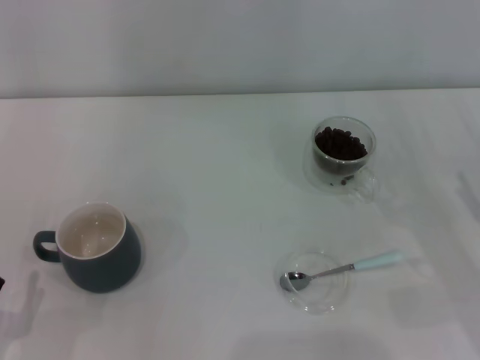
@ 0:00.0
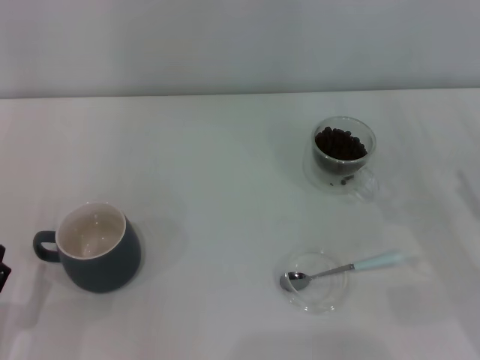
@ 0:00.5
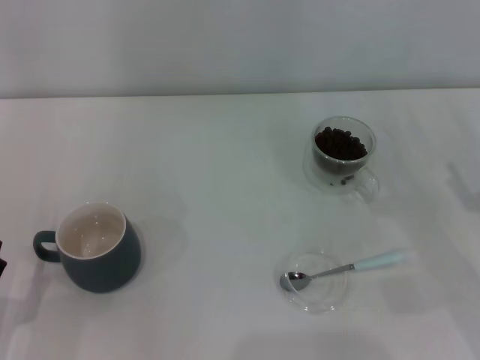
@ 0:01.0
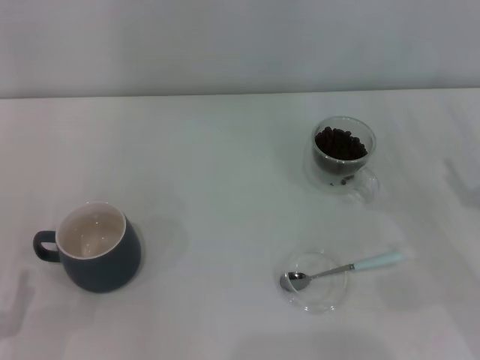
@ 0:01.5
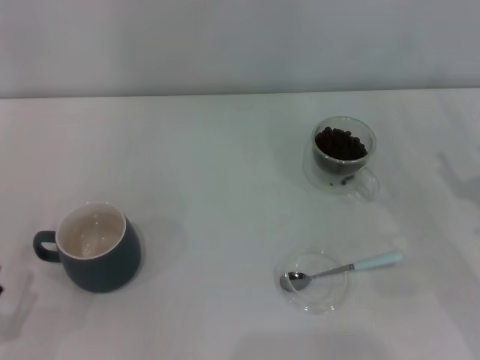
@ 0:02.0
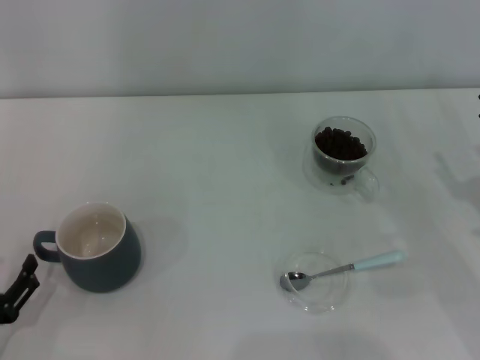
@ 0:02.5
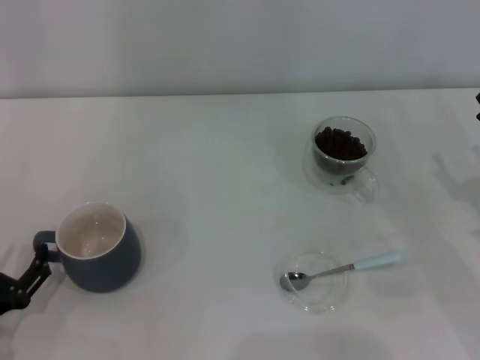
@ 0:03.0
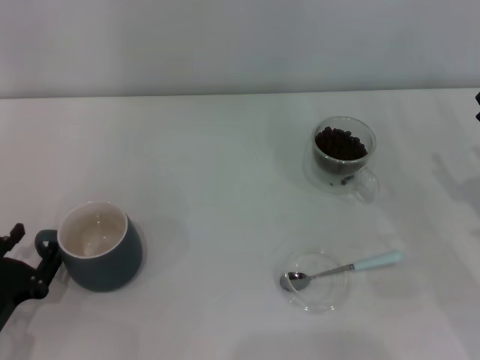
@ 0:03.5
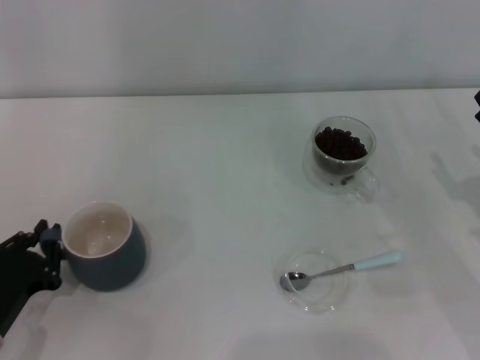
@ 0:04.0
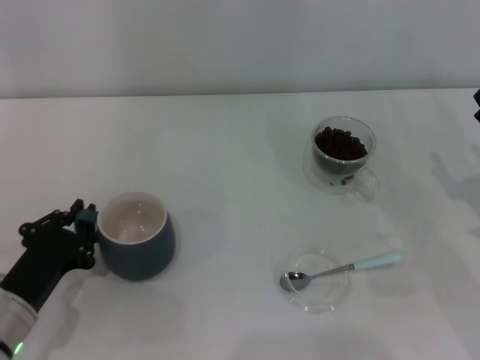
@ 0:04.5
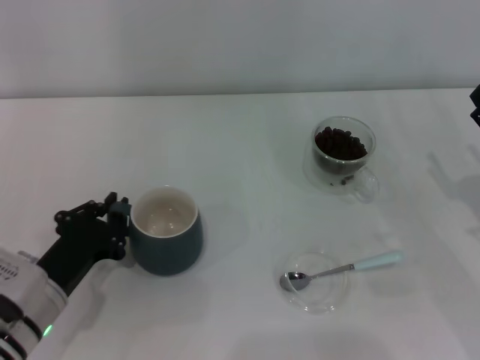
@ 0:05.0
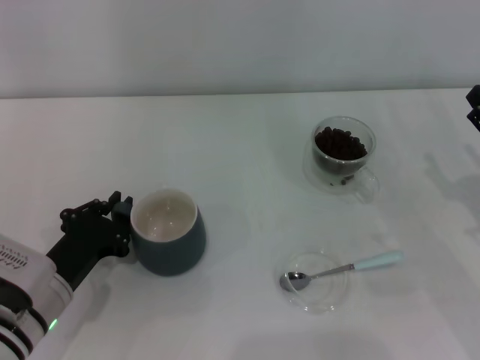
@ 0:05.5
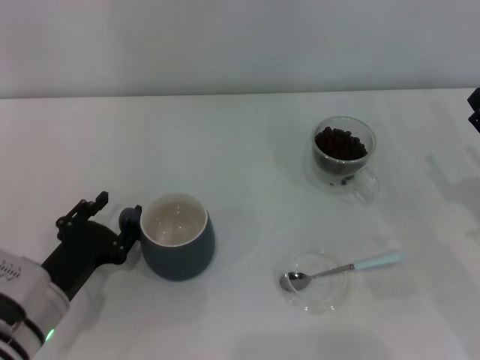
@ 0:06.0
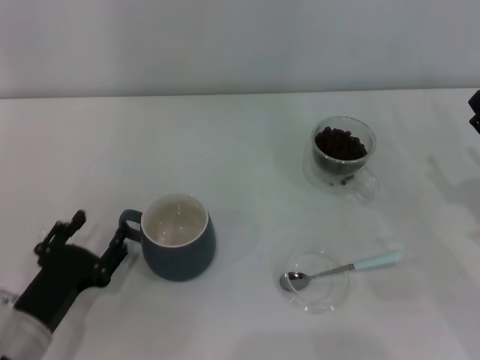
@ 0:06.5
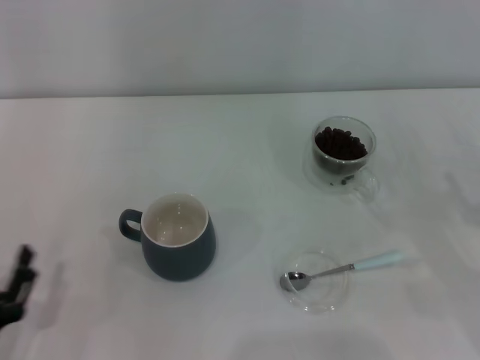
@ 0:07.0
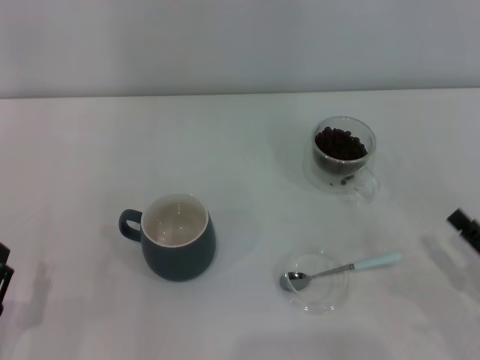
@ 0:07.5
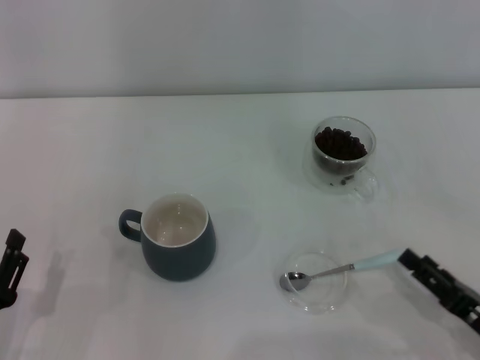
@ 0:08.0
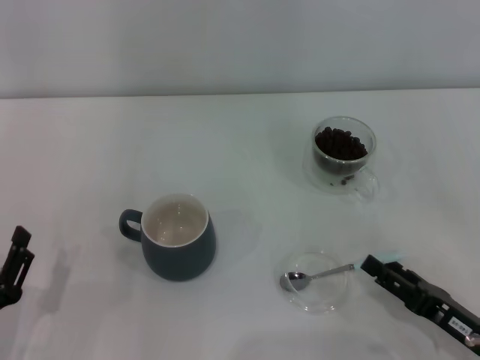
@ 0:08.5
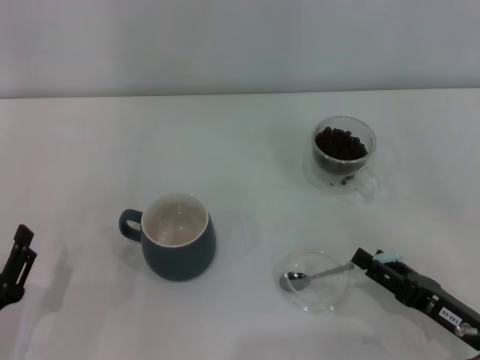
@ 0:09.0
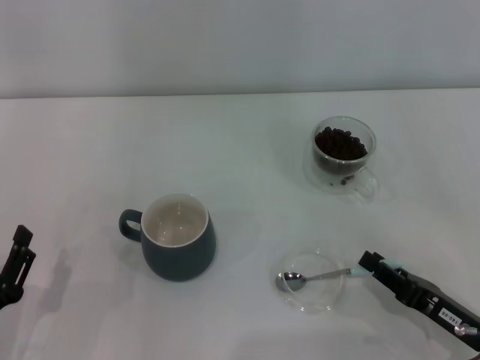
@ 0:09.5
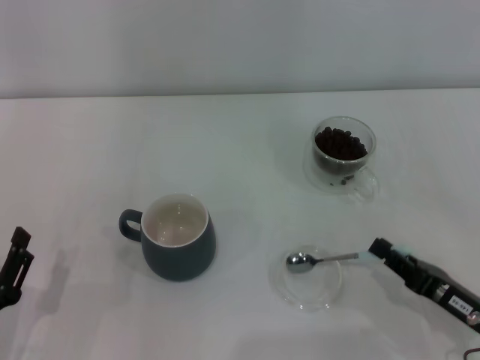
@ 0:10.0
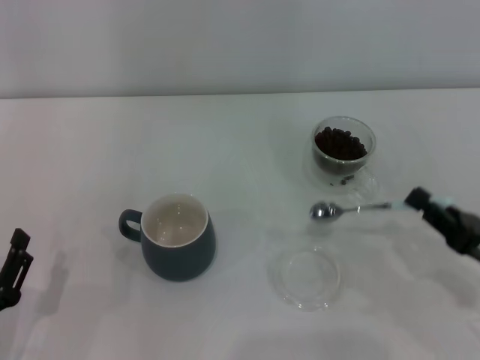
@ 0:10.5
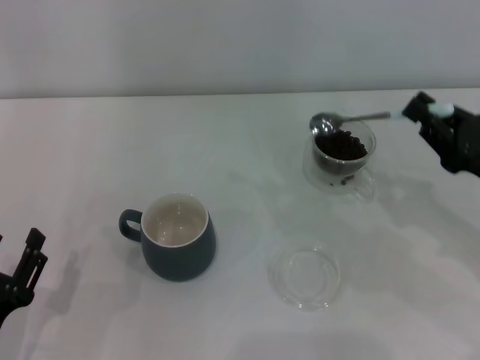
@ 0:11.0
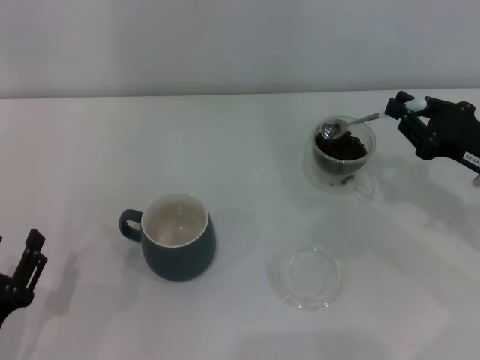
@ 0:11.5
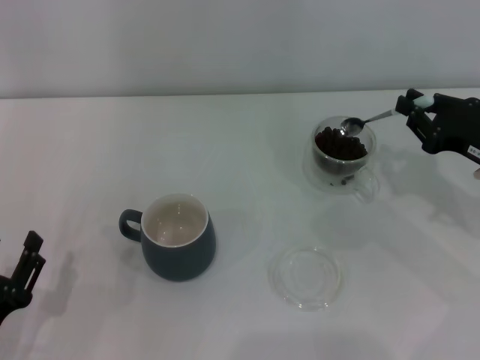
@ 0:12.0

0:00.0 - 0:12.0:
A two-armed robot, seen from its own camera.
Task of the whole recording: Use a blue spoon to take out the coffee beans from the glass and pour them into the gray cup.
Step, 0:00.0 - 0:06.5: Move the cup to the center of view with the left gripper.
Step, 0:07.0 - 0:10.0: Pick up the spoon with the right gripper.
0:02.0 - 0:04.0: The left gripper shifts about 10 cm forward, and closes.
0:04.0 - 0:06.0: The left gripper travels to the right by about 5 cm.
0:06.0 - 0:08.0: The left gripper heads backward and to the left, covering some 10 cm; the right gripper goes some 15 cm backward and downward.
0:08.0 - 0:10.0: The right gripper closes.
0:10.0 - 0:12.0: The right gripper is displaced forward and upward by roughly 15 cm.

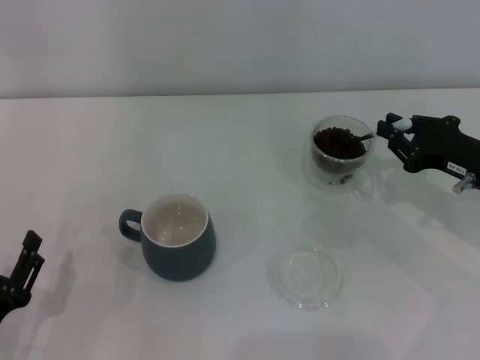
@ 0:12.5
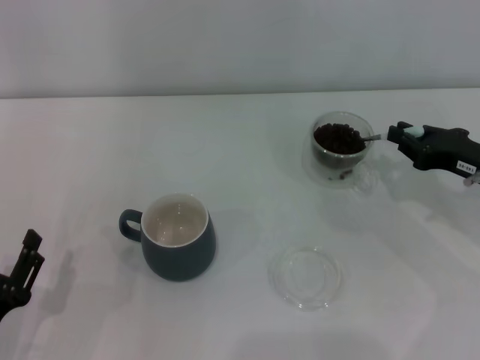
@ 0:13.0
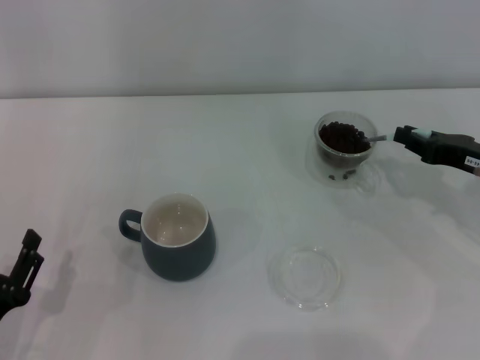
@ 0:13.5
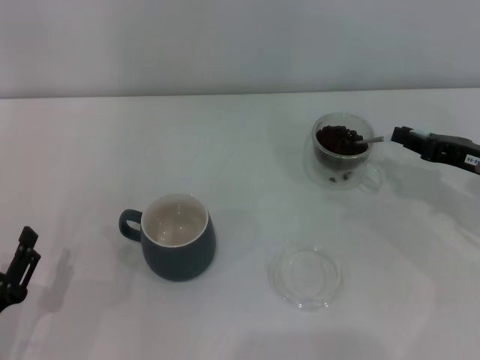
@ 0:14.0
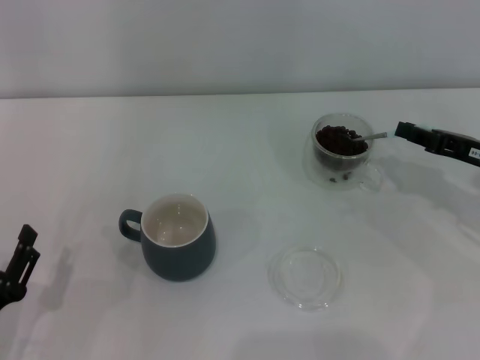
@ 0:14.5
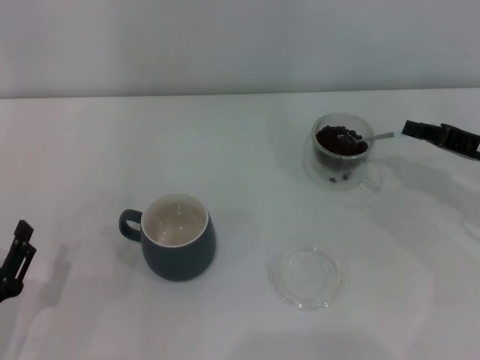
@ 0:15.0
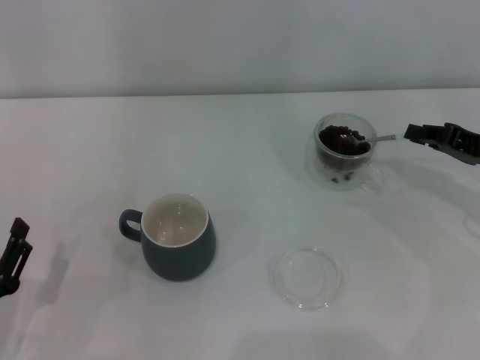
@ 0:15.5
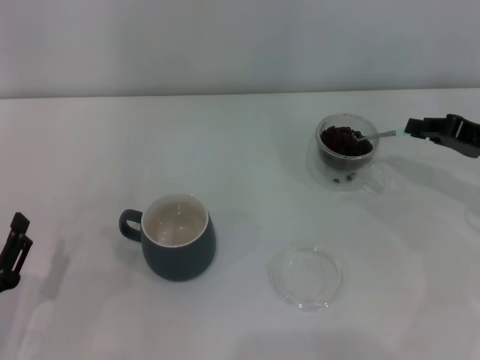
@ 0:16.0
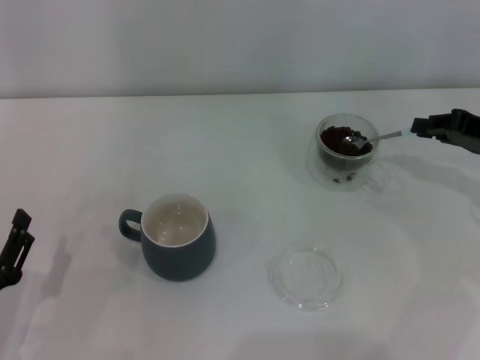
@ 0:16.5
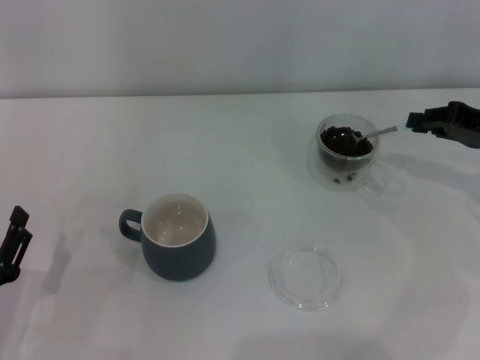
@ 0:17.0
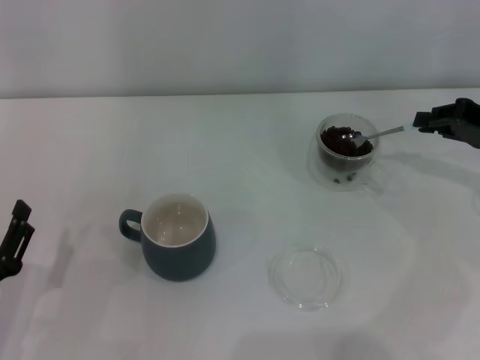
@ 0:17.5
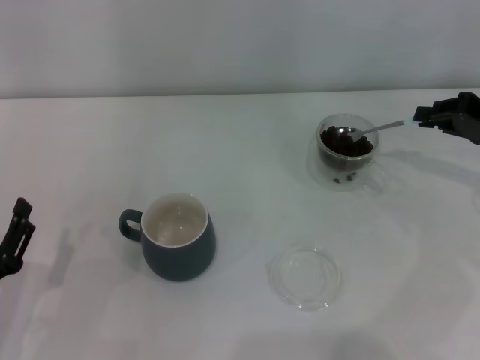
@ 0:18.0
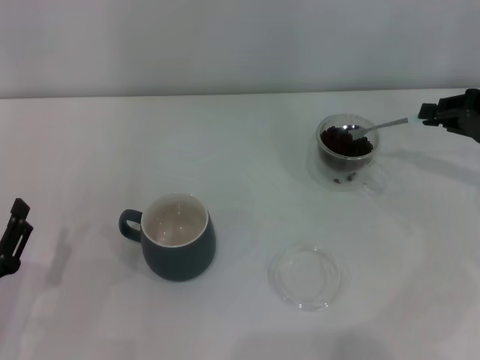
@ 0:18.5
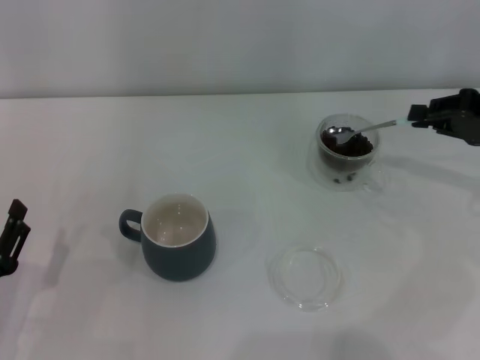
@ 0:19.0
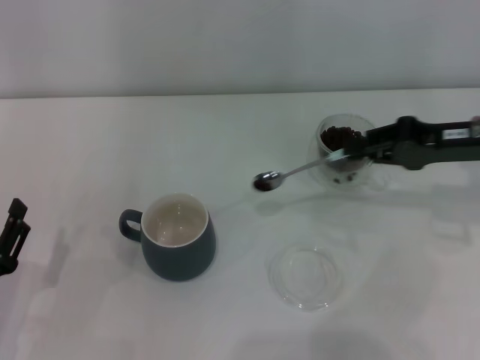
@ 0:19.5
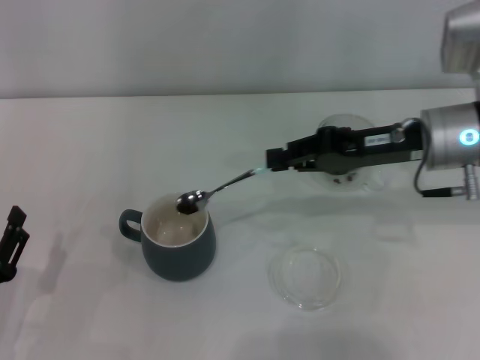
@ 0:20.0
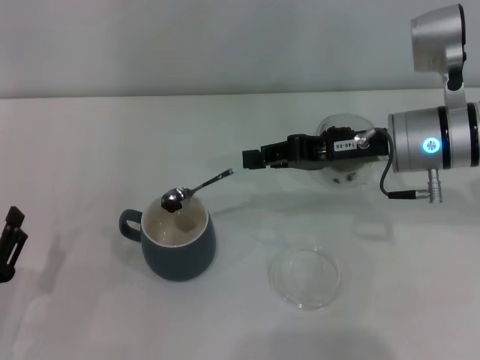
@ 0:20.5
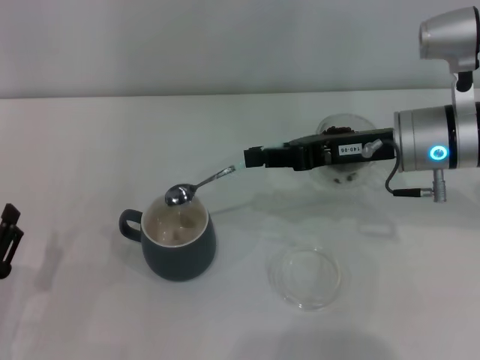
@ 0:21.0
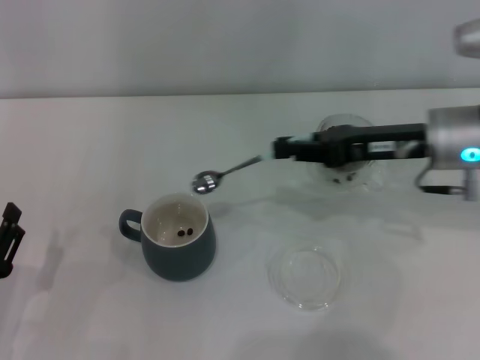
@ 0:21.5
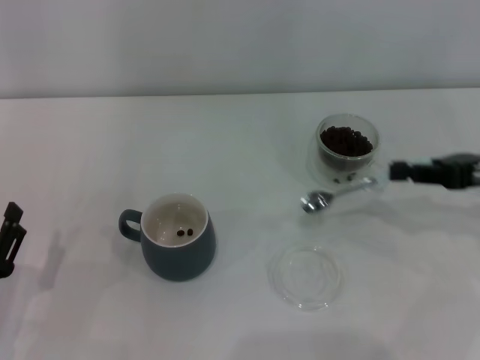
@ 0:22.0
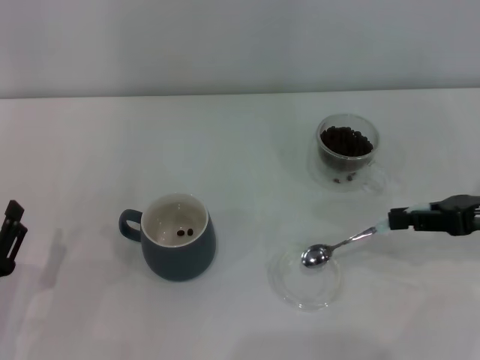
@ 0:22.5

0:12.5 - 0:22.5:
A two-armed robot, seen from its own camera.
Task of the whole recording: Use a blue spoon to take out the coffee beans from the glass and pour them into the gray cup.
Step, 0:12.5 - 0:21.0: Scoop a spoonful of beans into the cup with the right gripper.
0:14.5 - 0:16.5: The grippers stay close to where they were, moving slightly.
0:16.5 - 0:18.5: The grippers stay close to where they were, moving slightly.
0:18.5 - 0:20.5: The right gripper heads to the left, covering approximately 15 cm.
0:20.5 - 0:22.5: The right gripper travels to the right and backward by roughly 15 cm.

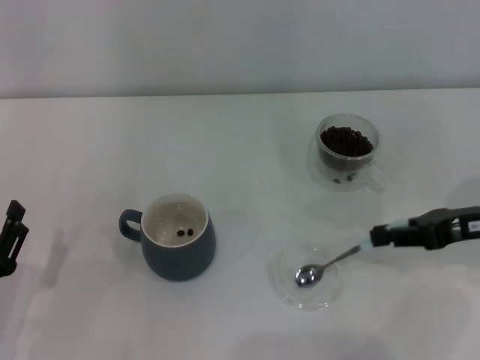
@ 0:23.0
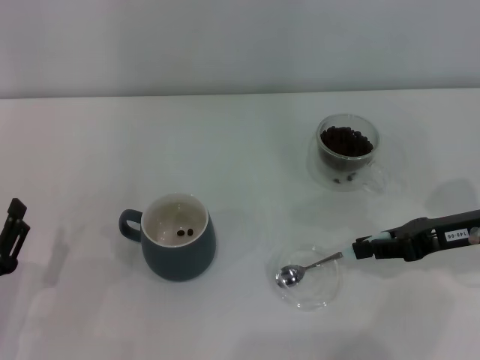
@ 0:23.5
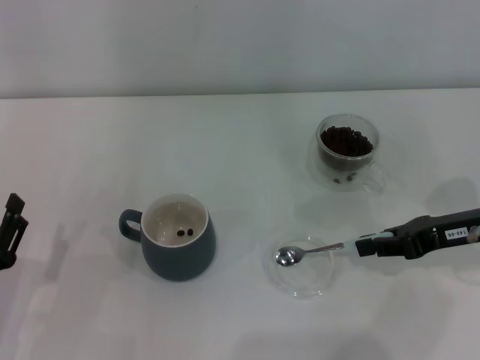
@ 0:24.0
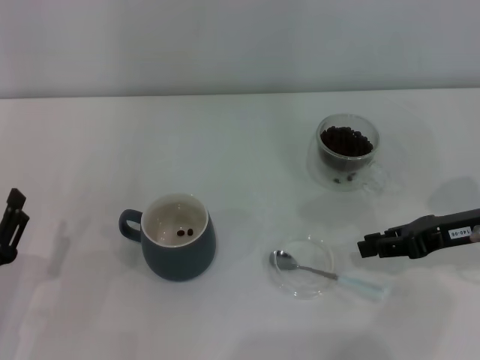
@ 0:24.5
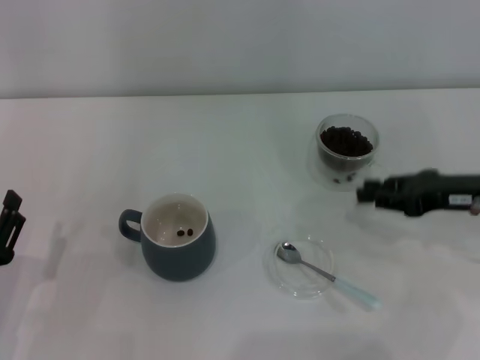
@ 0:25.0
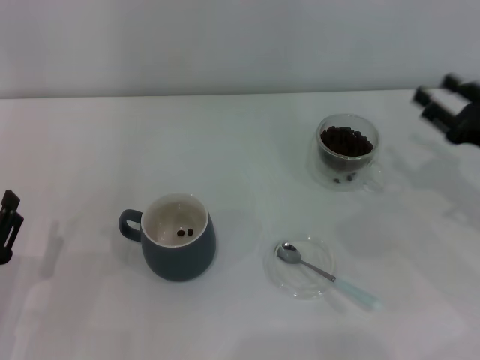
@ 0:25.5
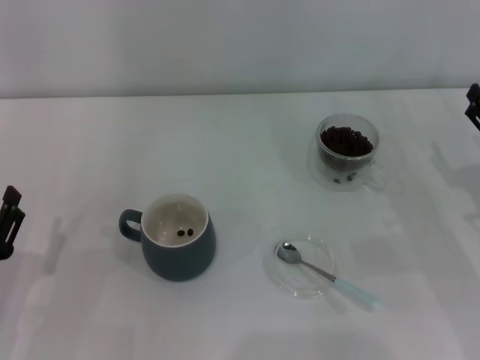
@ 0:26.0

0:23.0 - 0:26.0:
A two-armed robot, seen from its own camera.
Task of the whole recording: Use a blue spoon to take out the coffee beans from the glass and pour them into the gray cup.
Step, 0:23.0 - 0:24.5: Place the spoon back in its original place with the right gripper.
0:23.0 - 0:24.5: The grippers move only a little.
0:24.5 - 0:26.0: The right gripper changes place by approximately 5 cm, and opens its fingers.
